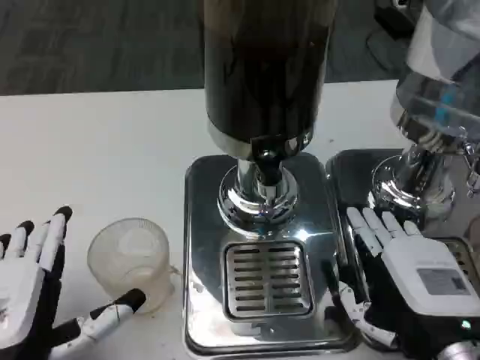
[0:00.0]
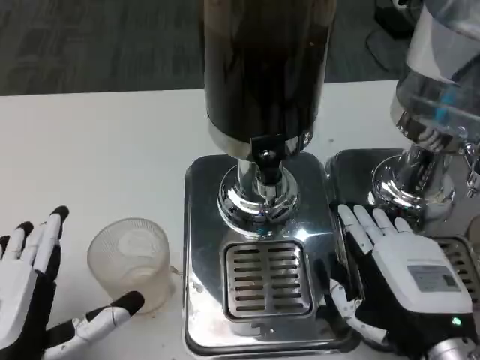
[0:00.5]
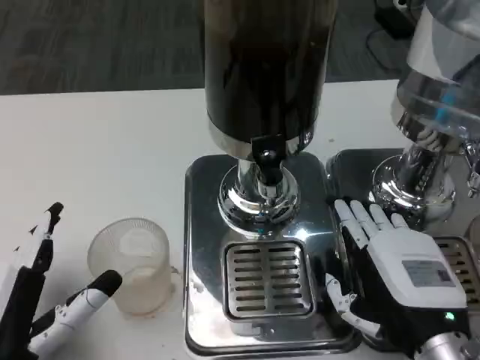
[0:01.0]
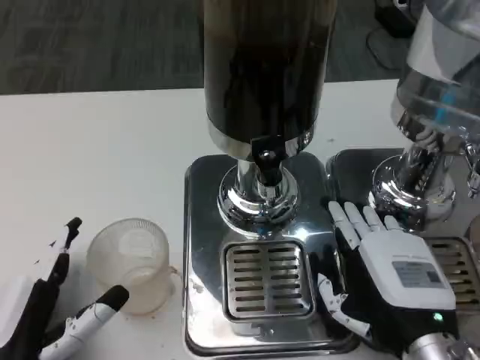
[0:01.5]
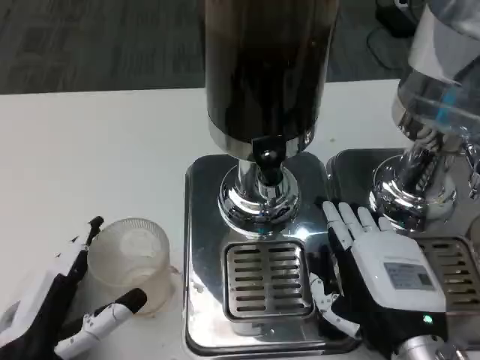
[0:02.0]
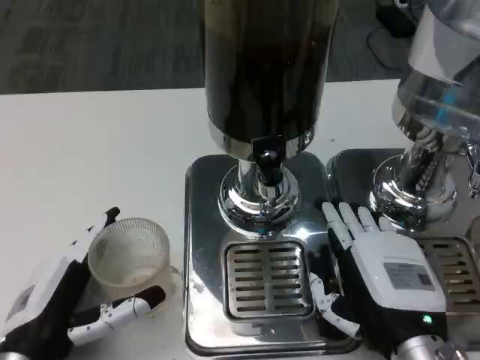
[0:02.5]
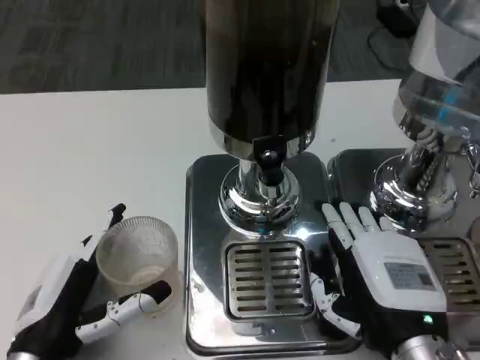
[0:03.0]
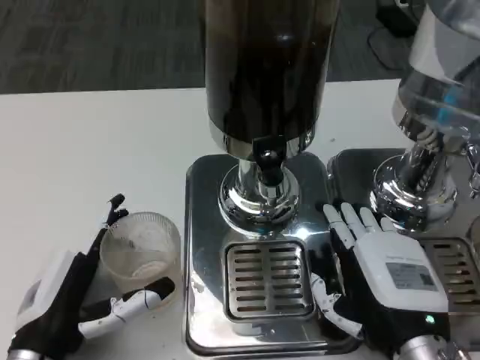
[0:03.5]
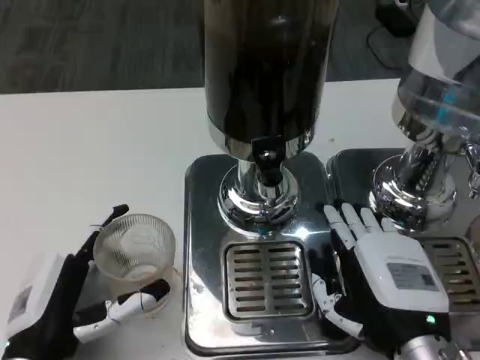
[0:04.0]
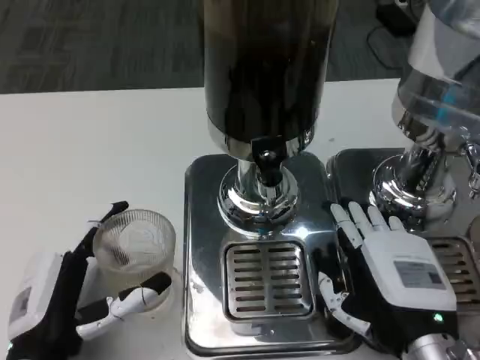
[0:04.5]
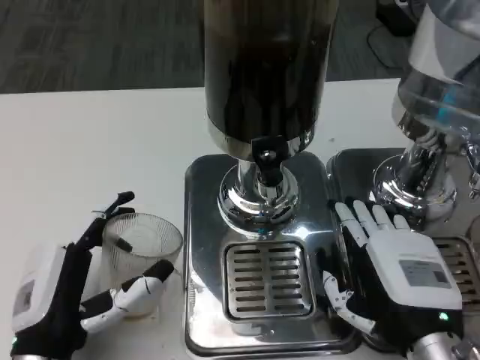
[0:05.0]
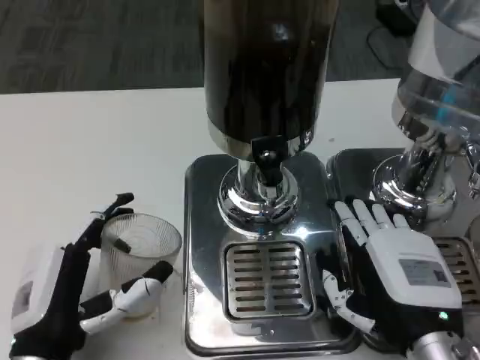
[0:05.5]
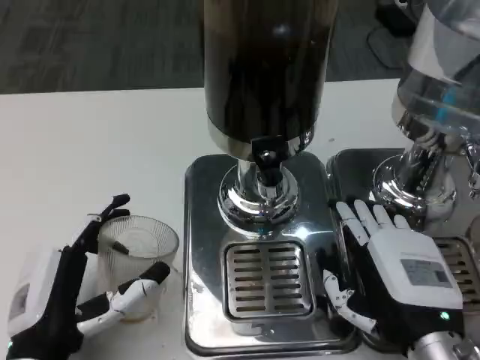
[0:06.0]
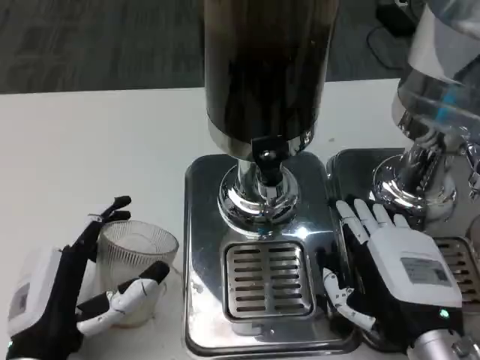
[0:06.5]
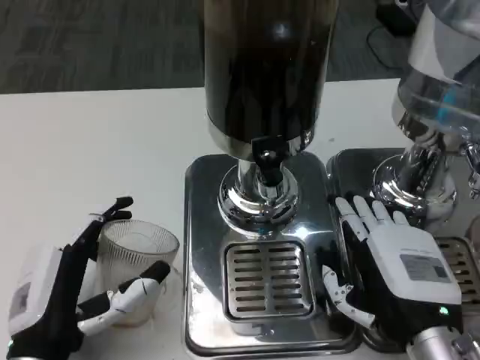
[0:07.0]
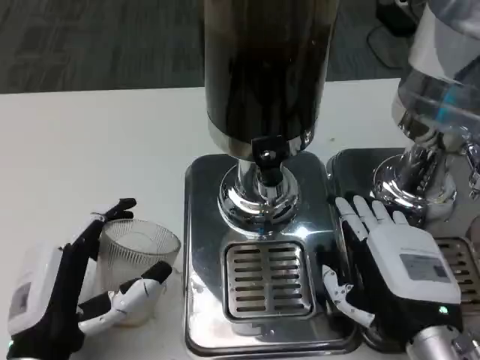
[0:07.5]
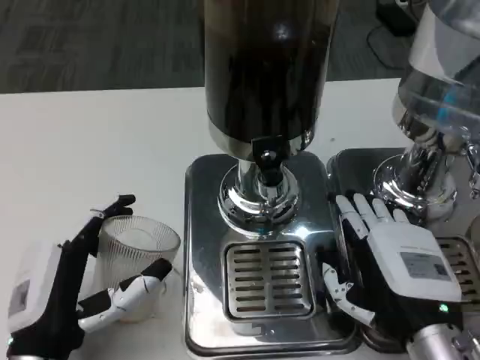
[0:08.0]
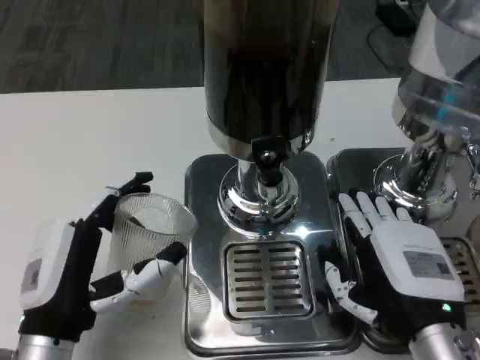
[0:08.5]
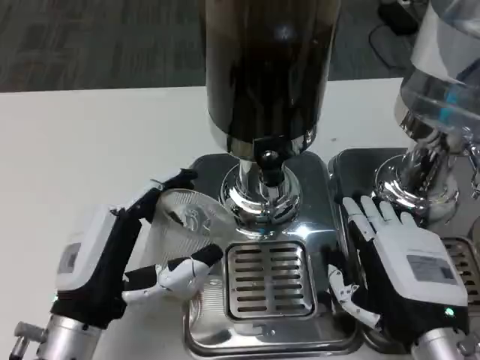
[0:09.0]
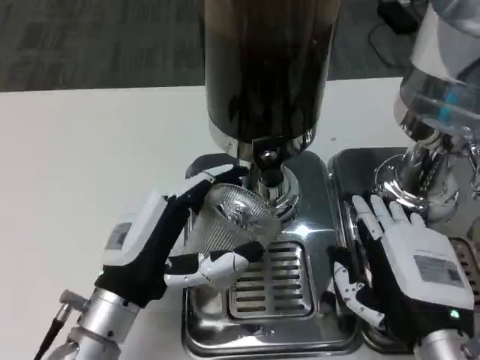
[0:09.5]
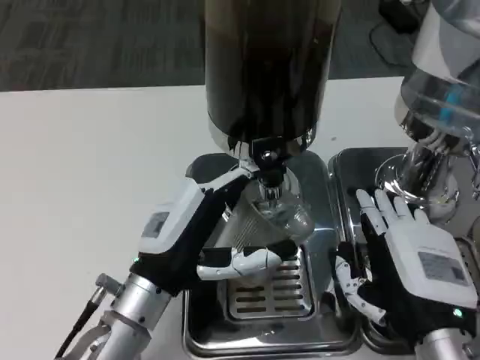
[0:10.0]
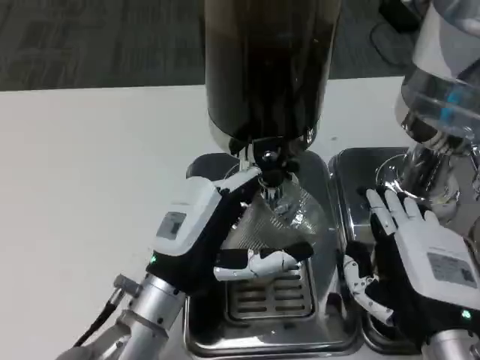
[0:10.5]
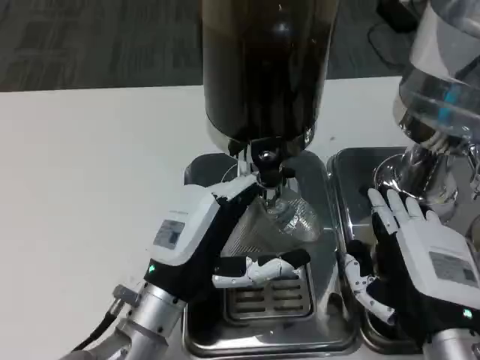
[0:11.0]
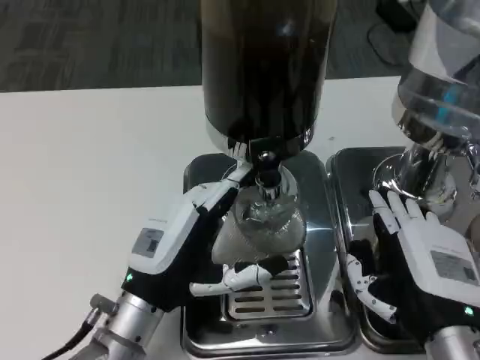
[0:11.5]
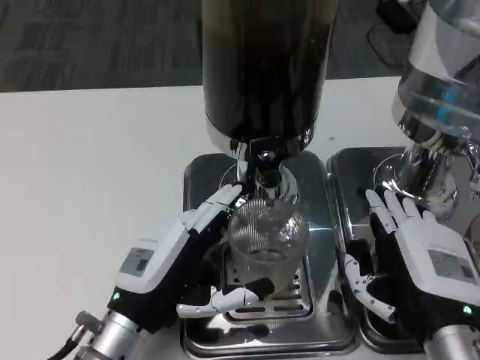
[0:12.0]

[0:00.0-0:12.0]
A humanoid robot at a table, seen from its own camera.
Task of the whole recording: Grasp the cup under the faucet to collect the drink, then remove the cup.
0:00.0 to 0:02.0: The left hand moves downward, some 5 cm.
0:02.0 to 0:06.0: The hands move only a little.
0:06.0 to 0:08.0: Both hands stay put.
0:08.0 to 0:10.0: The left hand is displaced forward and to the right by about 10 cm.

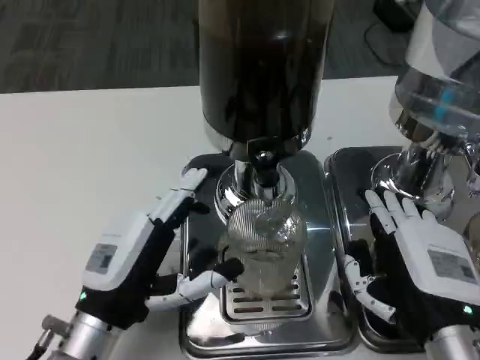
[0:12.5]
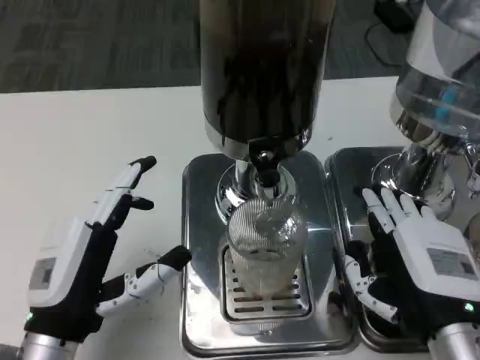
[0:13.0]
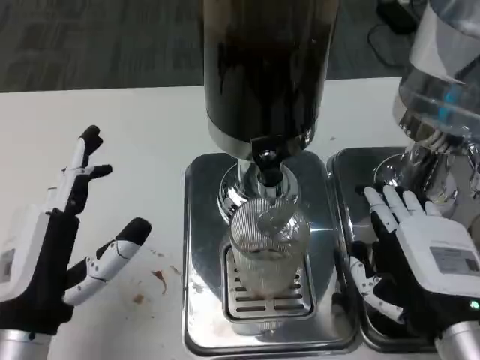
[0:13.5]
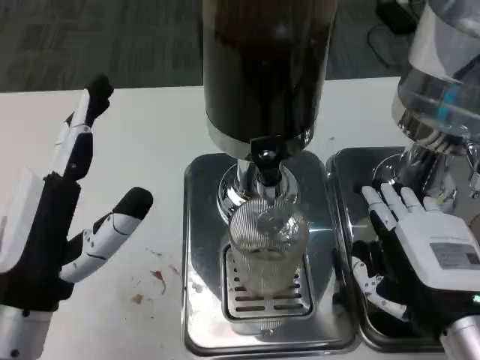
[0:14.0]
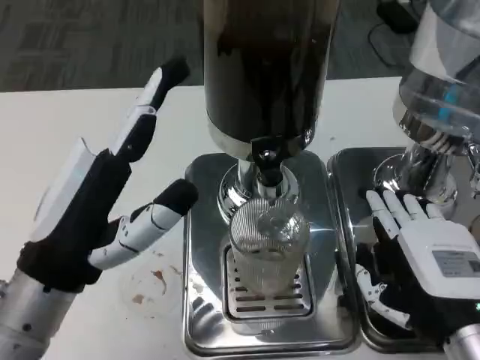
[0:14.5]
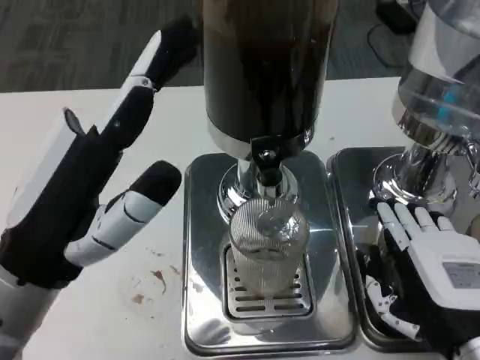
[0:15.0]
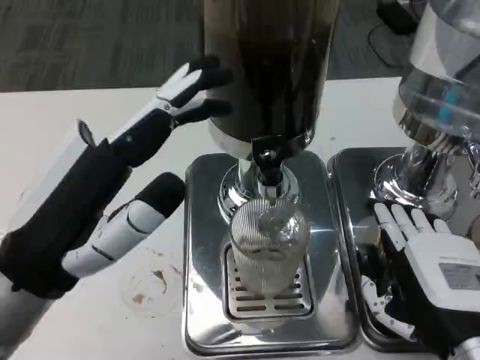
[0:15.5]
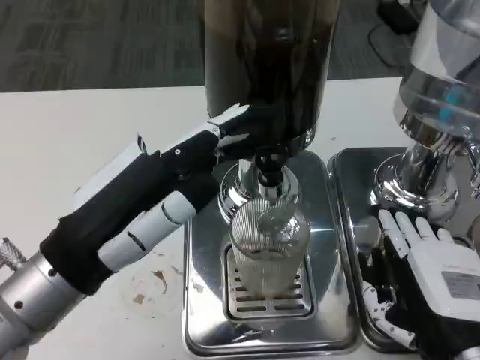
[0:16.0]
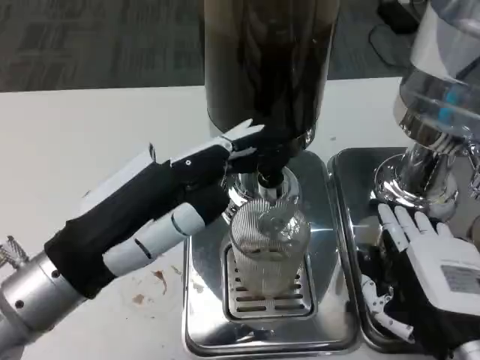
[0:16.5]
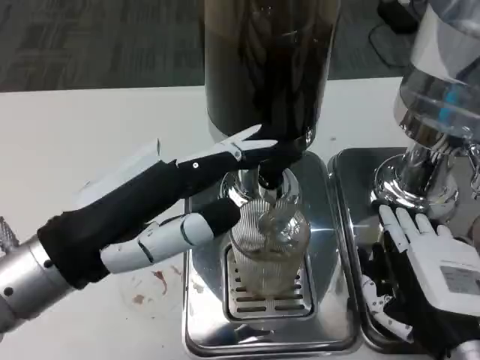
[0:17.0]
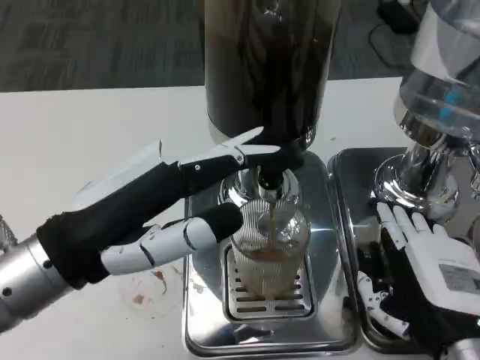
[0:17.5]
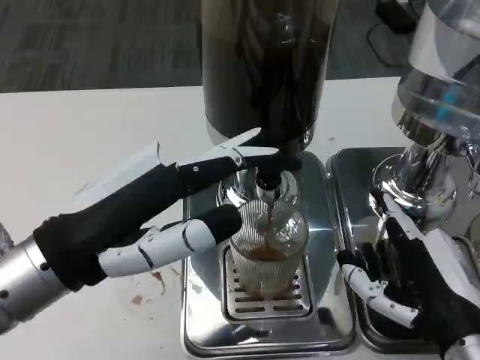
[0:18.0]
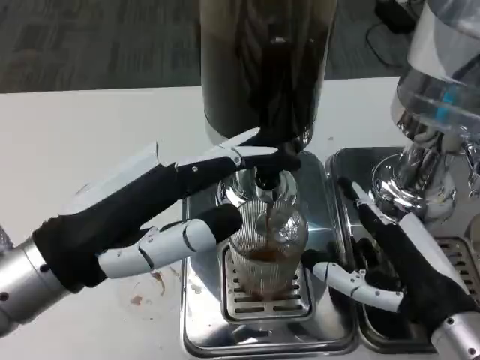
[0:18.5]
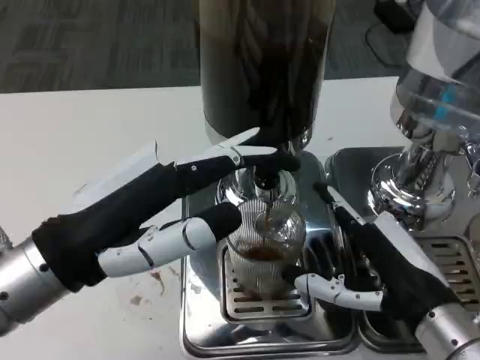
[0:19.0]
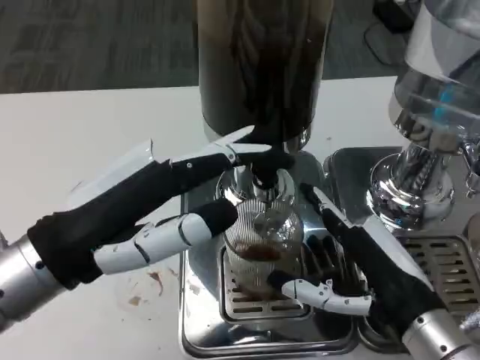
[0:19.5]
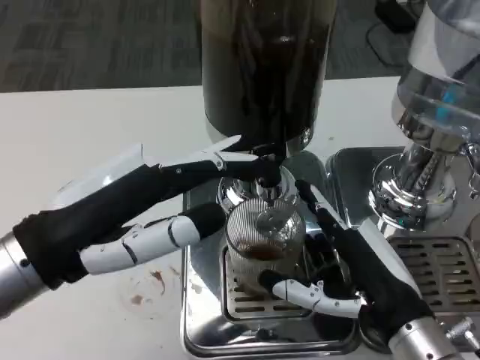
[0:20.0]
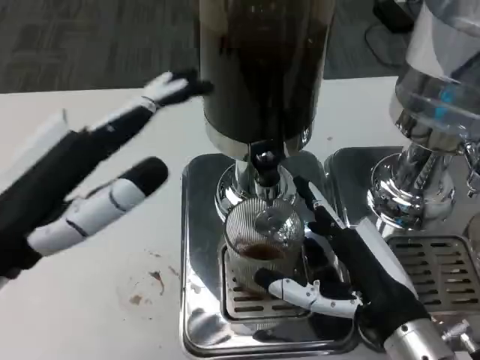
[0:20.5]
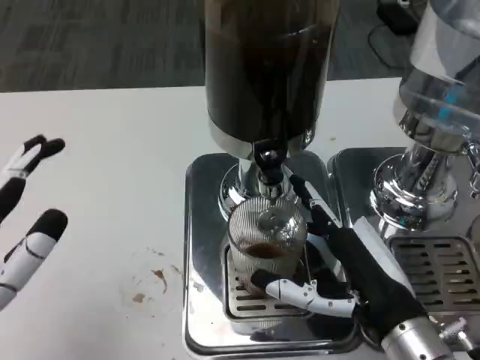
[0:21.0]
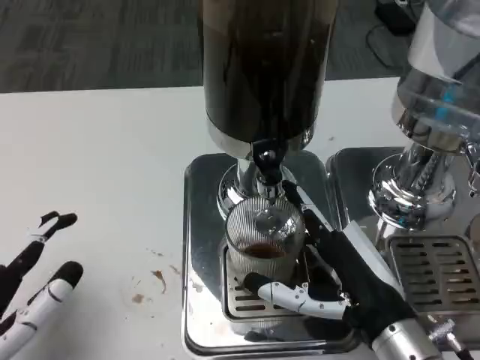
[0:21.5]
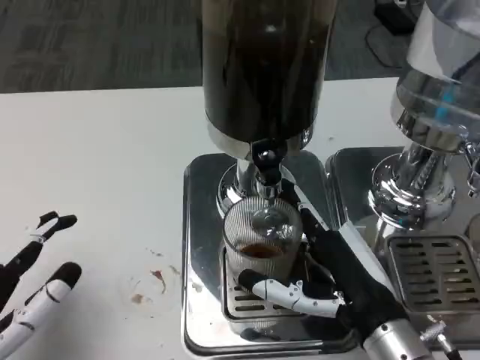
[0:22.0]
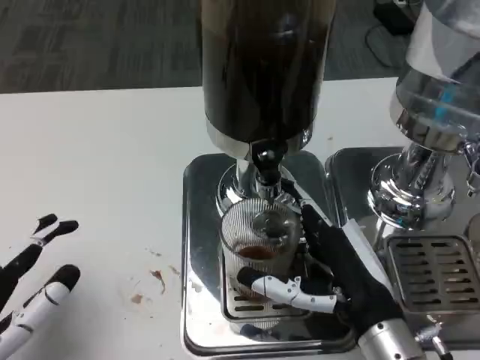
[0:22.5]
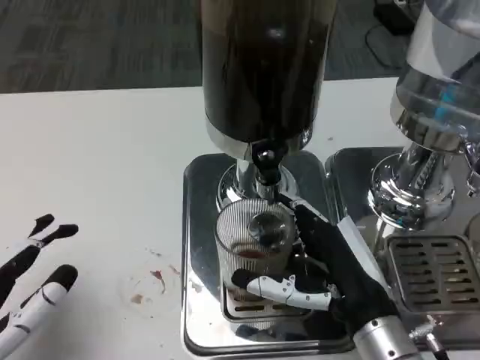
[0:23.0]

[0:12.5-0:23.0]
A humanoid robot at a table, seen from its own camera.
Task of the whole recording: Grasp the cup under the faucet to collect the drink, then remove the cup.
0:12.5 to 0:14.5: The left hand heads upward, covering some 10 cm.
0:19.0 to 0:21.0: The left hand is displaced backward, to the left and downward by approximately 10 cm.

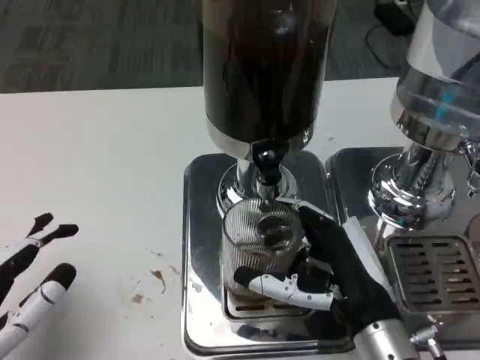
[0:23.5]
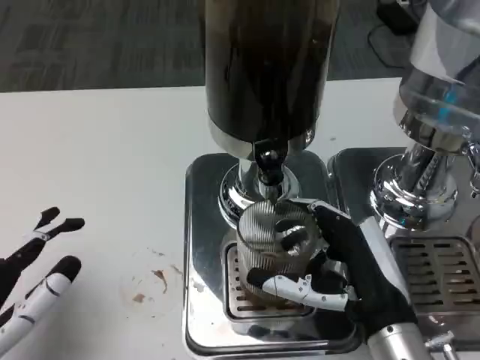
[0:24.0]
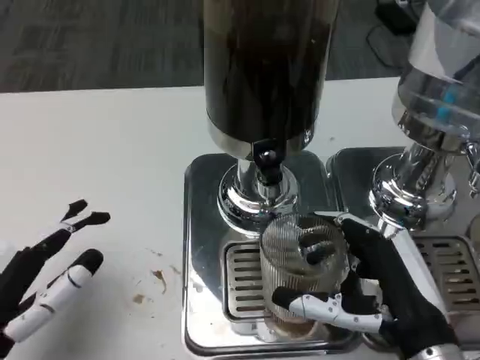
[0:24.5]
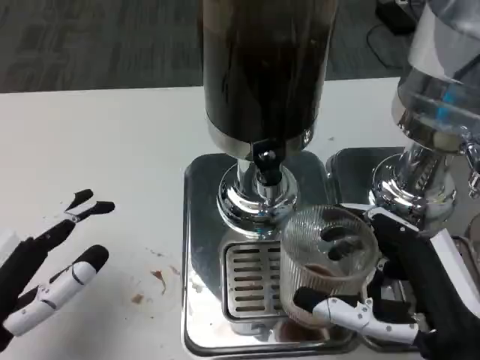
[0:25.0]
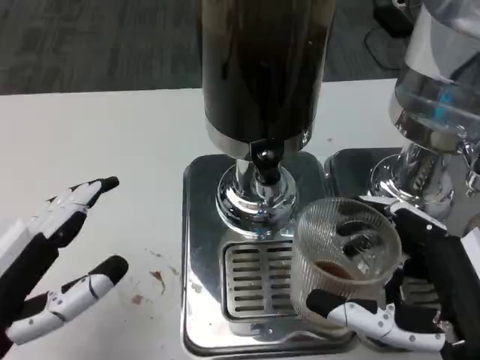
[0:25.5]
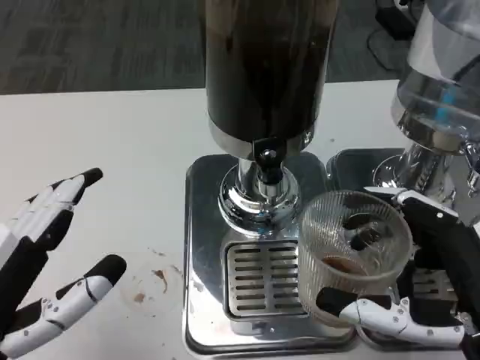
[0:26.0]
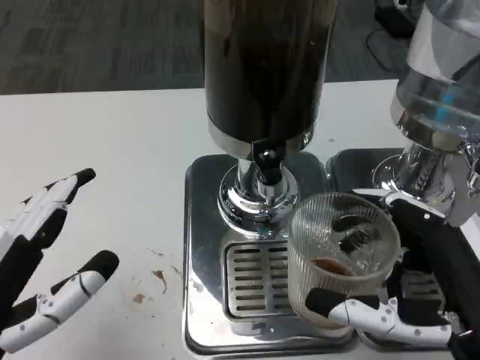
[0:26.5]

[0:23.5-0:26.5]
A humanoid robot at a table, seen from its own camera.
Task of the whole recording: Grasp the cup under the faucet to collect the drink, then remove the cup.
0:23.5 to 0:25.0: The right hand is displaced backward by about 5 cm.
0:25.0 to 0:26.5: The left hand shifts by some 5 cm.
